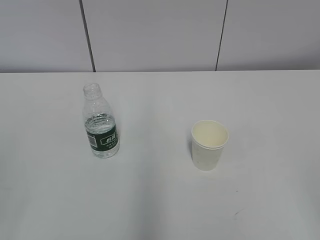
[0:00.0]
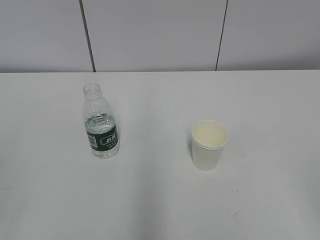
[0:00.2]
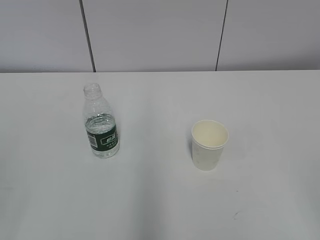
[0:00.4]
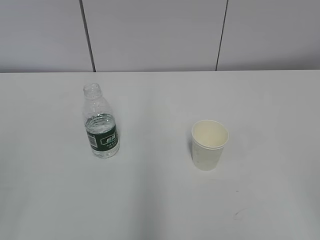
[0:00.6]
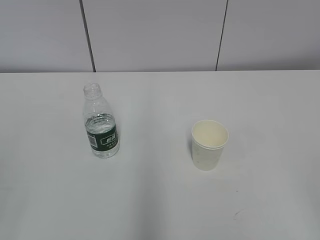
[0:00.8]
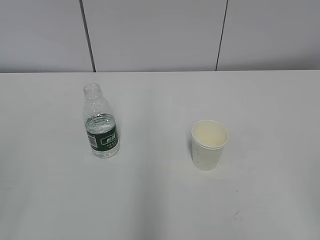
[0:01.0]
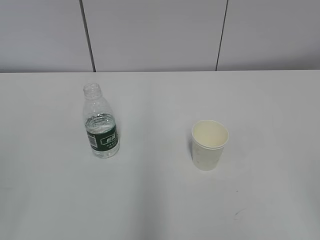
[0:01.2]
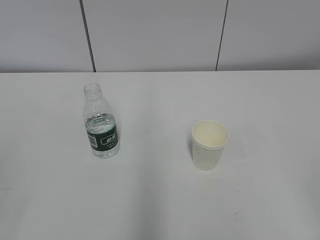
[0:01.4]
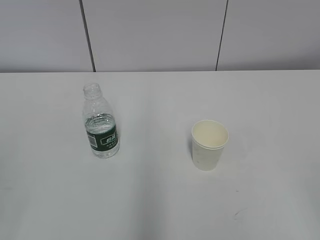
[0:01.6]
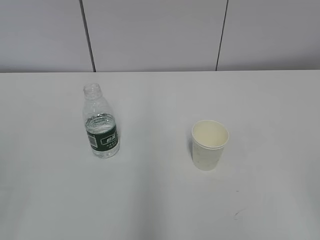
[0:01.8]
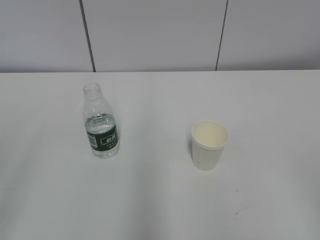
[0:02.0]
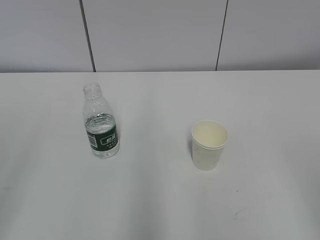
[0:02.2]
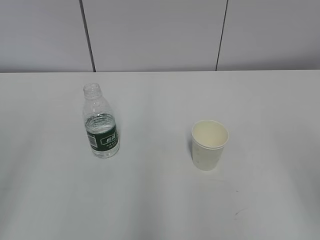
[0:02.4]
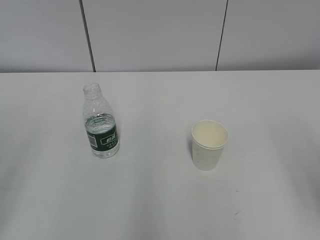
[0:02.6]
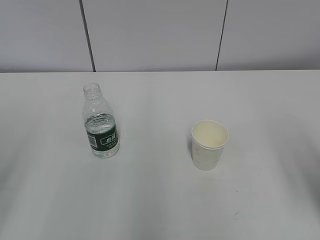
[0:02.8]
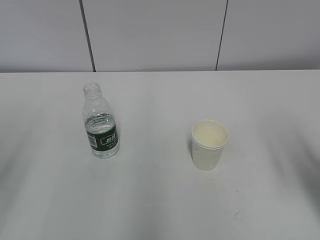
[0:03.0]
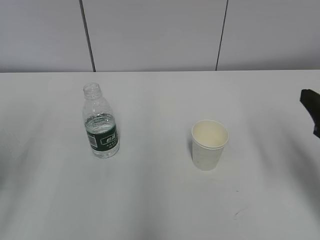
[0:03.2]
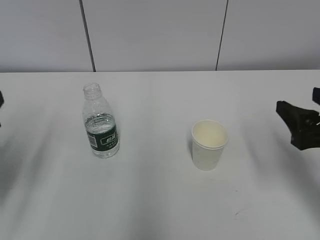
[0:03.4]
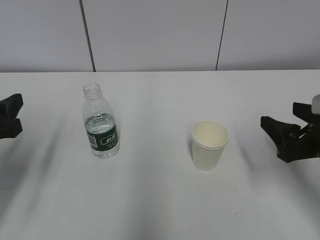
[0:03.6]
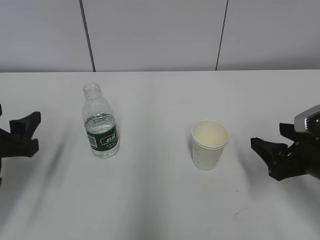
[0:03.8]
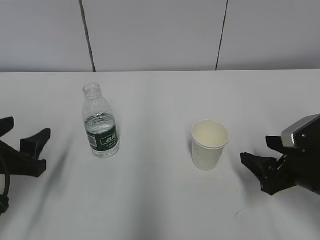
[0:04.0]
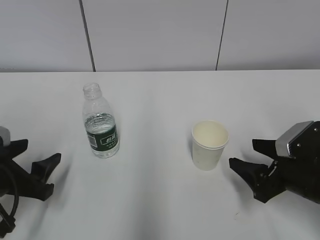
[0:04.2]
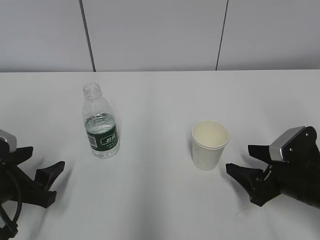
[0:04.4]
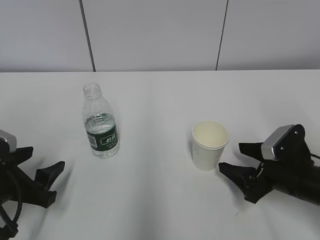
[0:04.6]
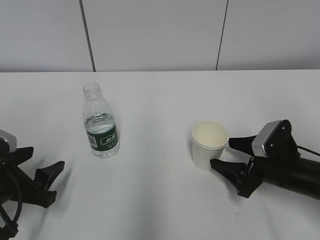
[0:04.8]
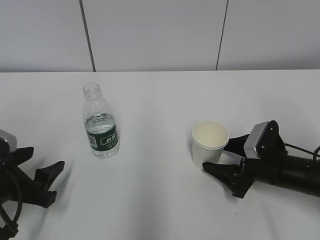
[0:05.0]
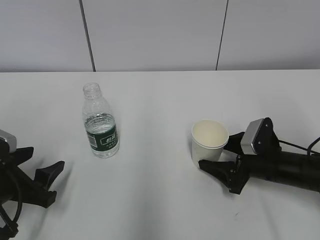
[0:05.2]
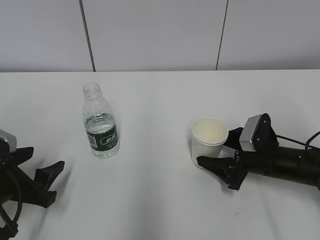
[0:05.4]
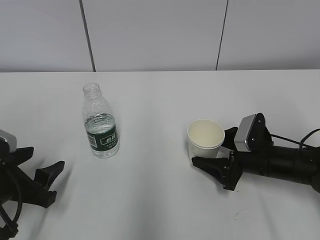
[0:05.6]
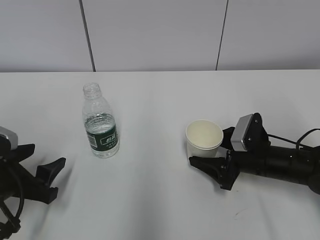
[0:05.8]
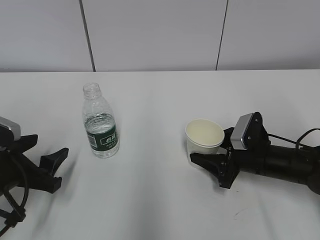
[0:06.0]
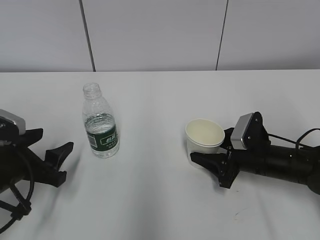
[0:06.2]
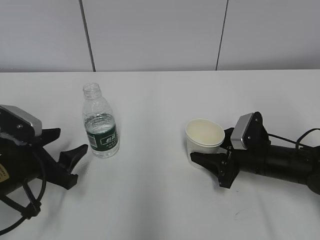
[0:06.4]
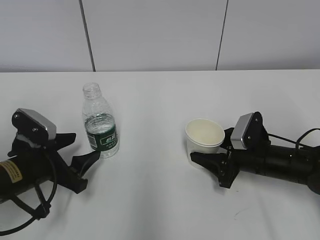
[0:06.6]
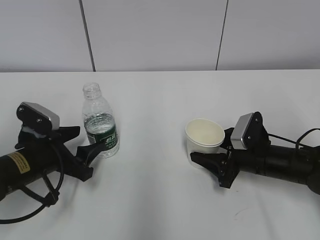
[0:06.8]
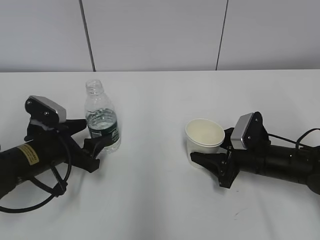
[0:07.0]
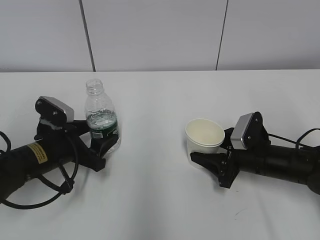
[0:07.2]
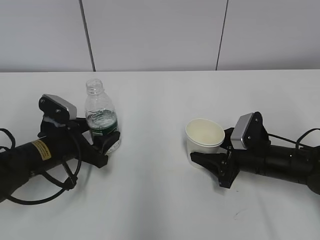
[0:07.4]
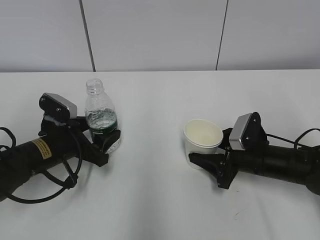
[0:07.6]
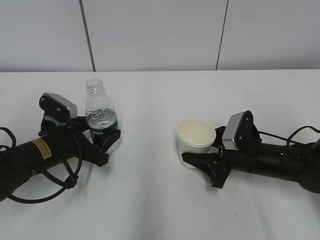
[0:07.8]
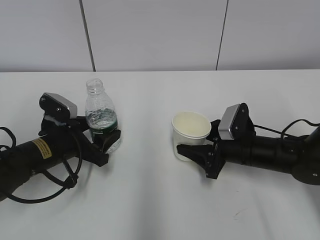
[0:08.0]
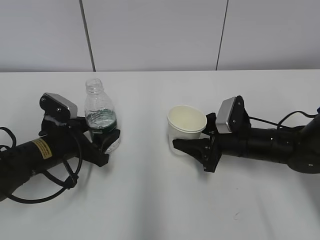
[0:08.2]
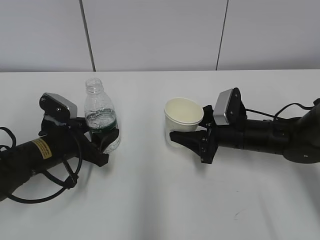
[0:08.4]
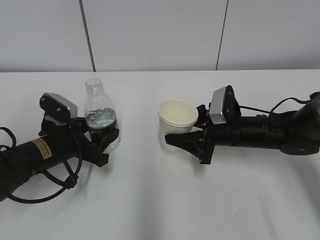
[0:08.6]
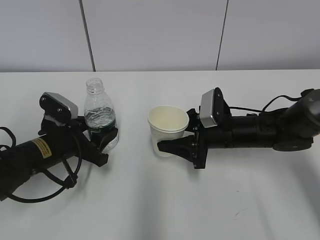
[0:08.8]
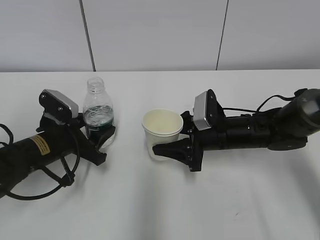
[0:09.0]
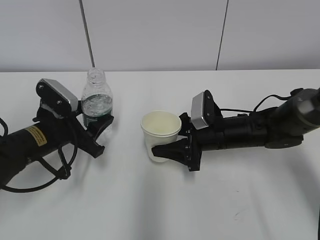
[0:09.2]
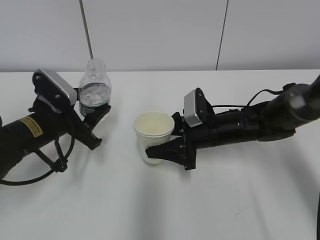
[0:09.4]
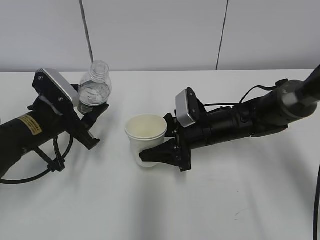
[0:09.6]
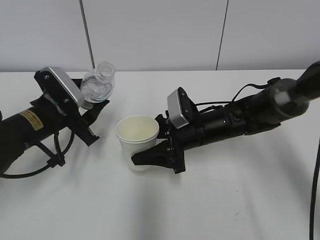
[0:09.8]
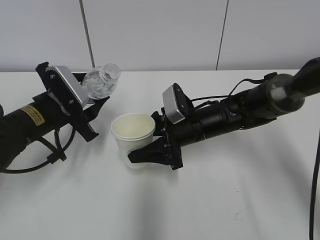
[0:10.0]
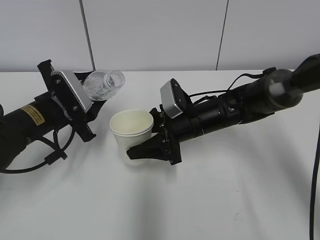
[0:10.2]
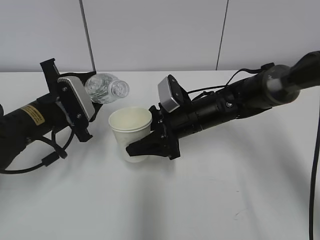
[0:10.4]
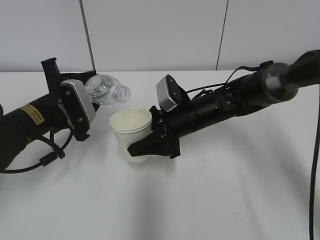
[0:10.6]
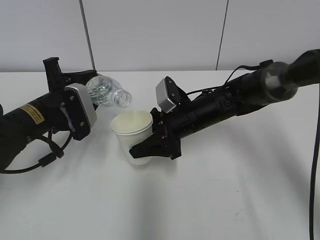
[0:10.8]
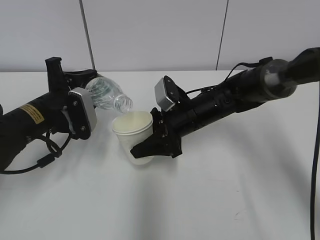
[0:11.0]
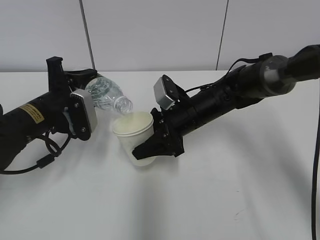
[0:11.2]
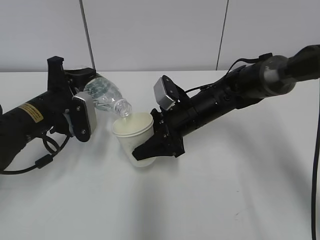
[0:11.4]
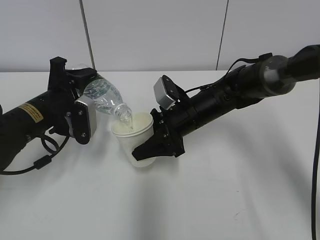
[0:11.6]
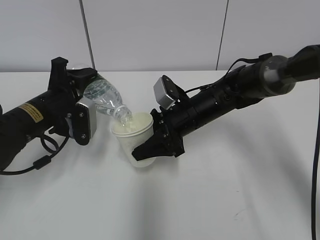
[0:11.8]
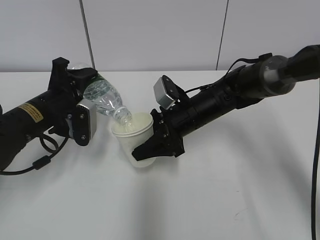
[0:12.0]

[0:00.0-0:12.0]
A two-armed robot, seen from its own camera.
Step, 0.0 to 6.4 s: Grab the paper cup with the right hand.
Step, 6.6 to 7.4 s: Grab the water bottle with the left hand.
Step, 7.6 to 9.4 s: Lift the paper cup with the right hand.
Step, 9.6 to 11.0 s: Fill water with the right hand.
Step, 9.6 to 11.0 s: Pour water with the left hand.
1.6 to 3.0 s: The right gripper goes some 20 cm forward.
3.0 to 4.4 s: The left gripper heads downward, forward and to the right, covering some 20 cm. The right gripper moves downward and forward, approximately 20 cm.
4.4 to 6.0 s: The right gripper goes some 5 cm forward, and closes its fingers.
6.0 to 7.6 s: The left gripper heads forward and to the right, covering roughly 10 cm.
7.6 to 9.0 s: The right gripper goes some 5 cm to the left. Meanwhile the left gripper closes its fingers.
9.0 to 10.4 s: The right gripper is displaced to the left by about 5 cm; the left gripper goes some 5 cm upward.

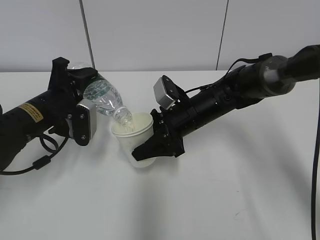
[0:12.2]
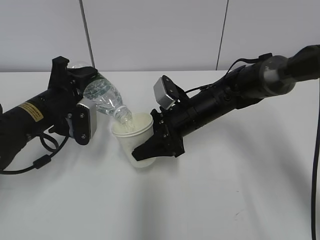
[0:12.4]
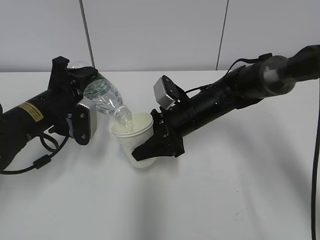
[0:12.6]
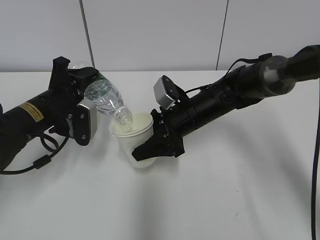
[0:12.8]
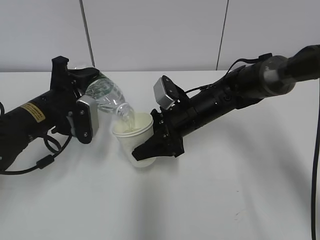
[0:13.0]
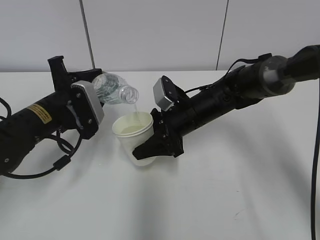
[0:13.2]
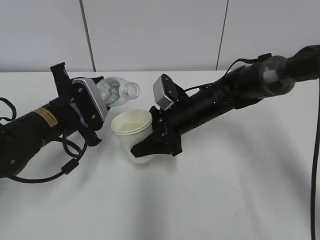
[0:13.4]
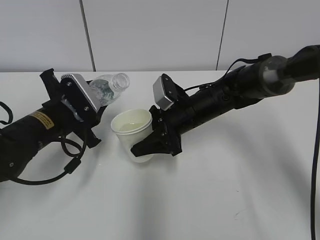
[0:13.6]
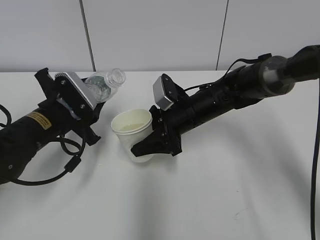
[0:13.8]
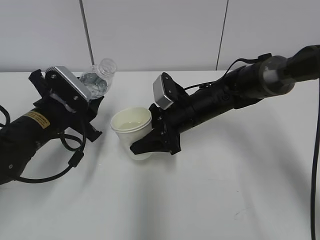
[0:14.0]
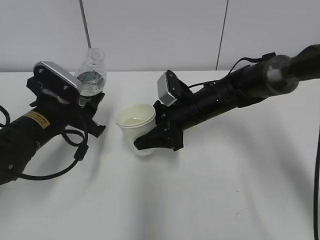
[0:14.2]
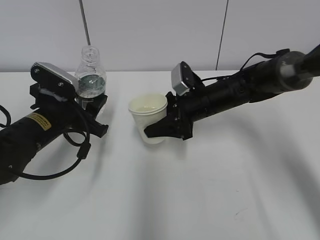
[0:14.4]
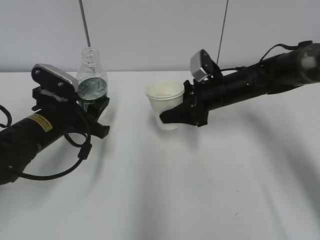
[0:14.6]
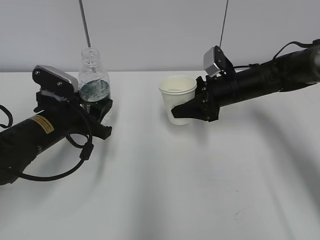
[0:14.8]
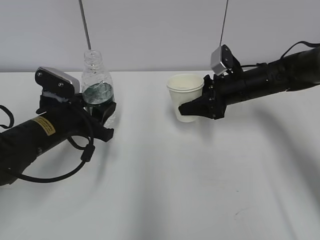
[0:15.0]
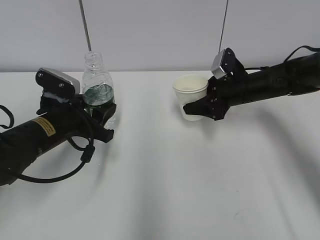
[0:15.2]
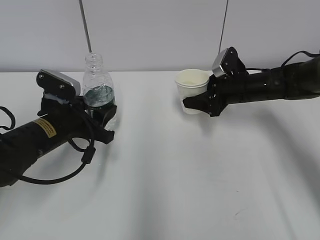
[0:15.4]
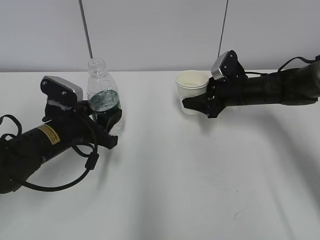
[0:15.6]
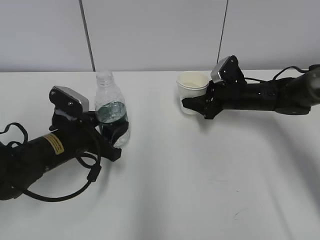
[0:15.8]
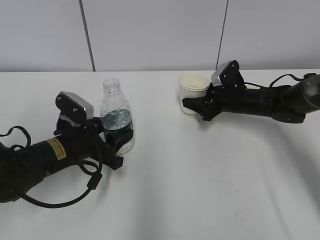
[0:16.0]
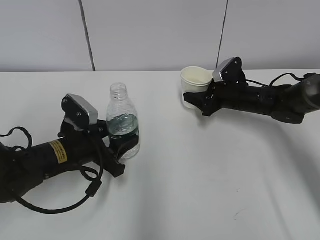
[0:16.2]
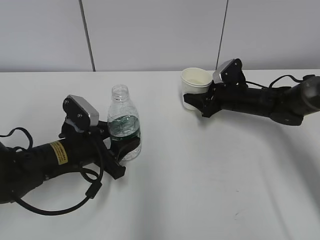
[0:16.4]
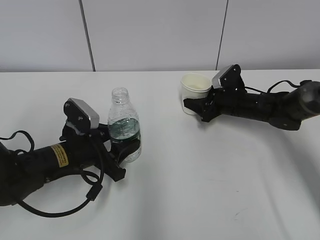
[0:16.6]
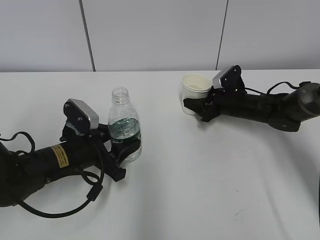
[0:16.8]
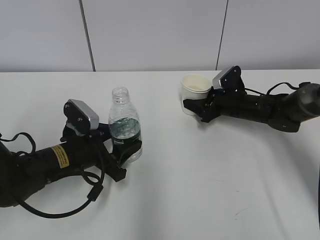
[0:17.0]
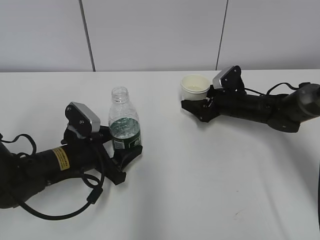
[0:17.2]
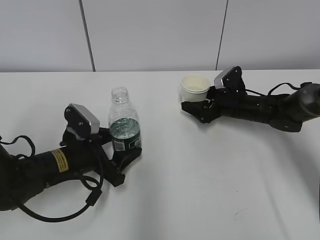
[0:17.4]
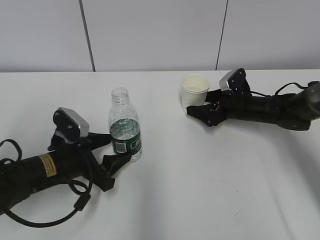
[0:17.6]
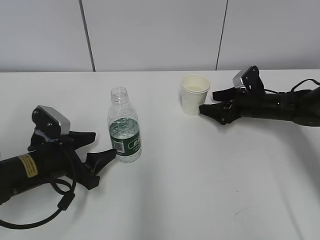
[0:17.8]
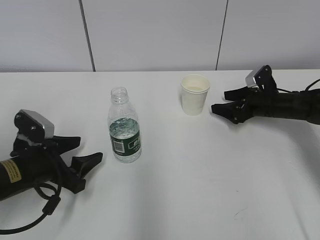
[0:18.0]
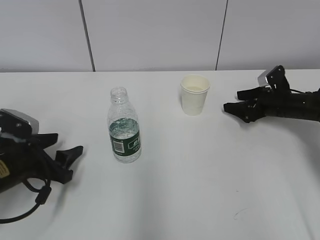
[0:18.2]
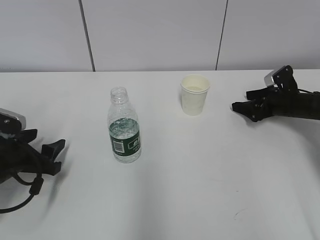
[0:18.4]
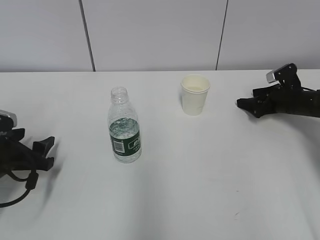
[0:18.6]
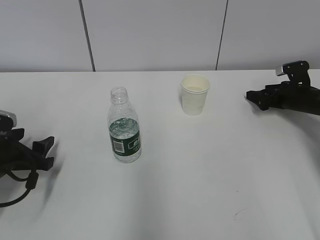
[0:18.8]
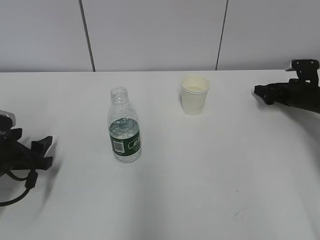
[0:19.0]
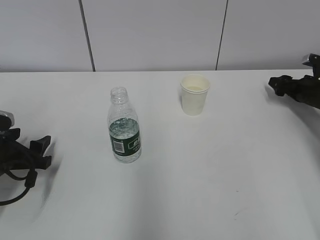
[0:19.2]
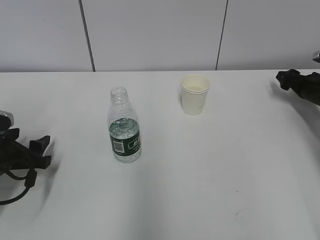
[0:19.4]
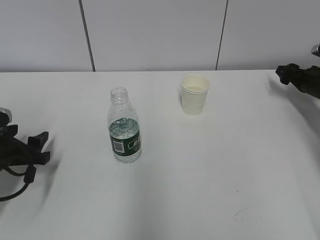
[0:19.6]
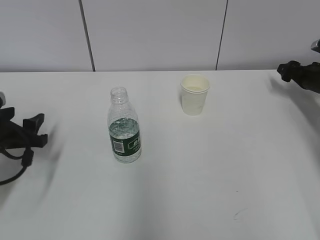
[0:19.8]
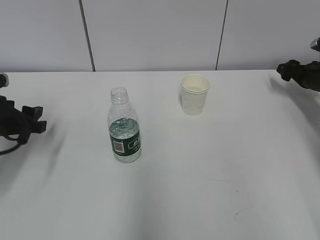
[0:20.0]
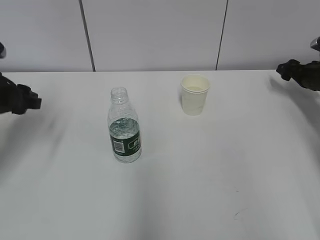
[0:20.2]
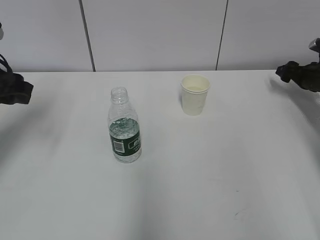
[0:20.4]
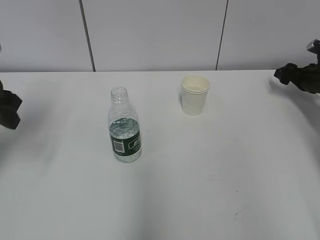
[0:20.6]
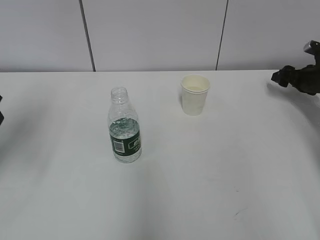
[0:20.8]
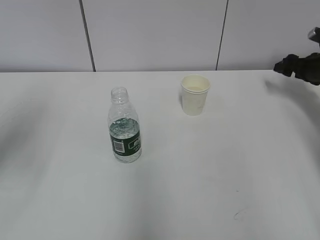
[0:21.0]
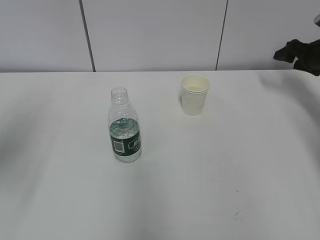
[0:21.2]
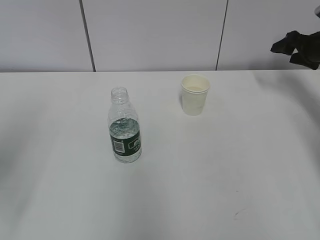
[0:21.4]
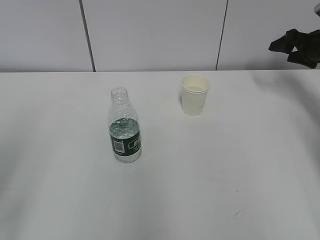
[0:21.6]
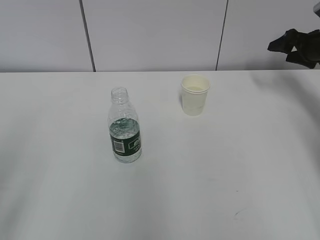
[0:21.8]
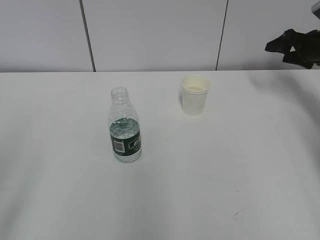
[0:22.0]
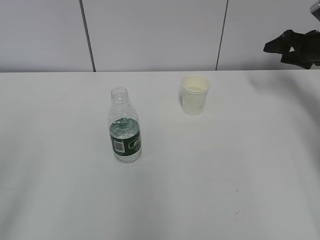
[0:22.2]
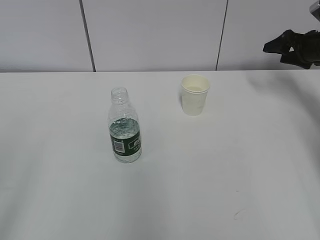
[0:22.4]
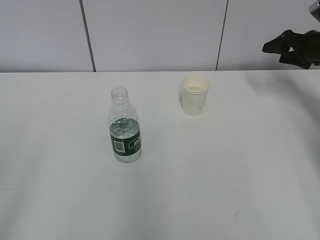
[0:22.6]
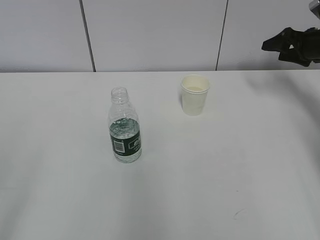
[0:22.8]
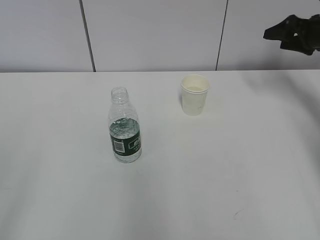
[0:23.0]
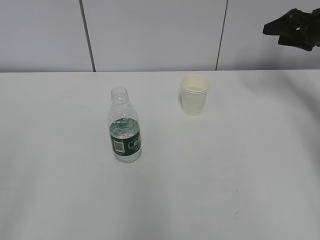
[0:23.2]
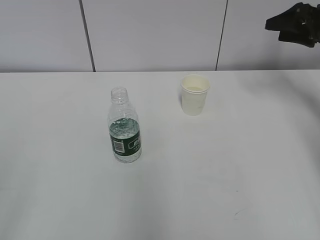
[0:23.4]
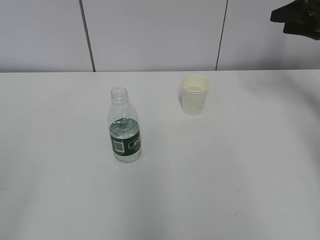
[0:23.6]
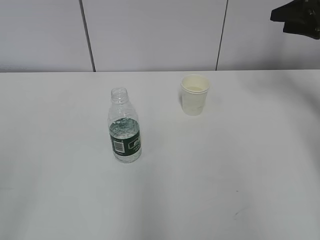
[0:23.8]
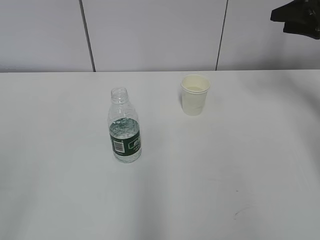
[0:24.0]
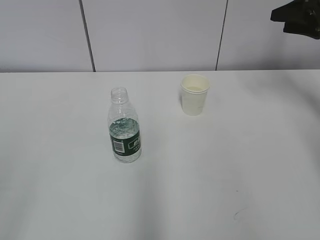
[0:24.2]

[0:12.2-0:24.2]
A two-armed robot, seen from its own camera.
Step, 12.4 to 14.2 s: Place the water bottle with the left hand.
13.8 to 15.2 s: The right gripper is displaced to the right by some 10 cm.
15.2 to 16.6 s: The left gripper shifts by approximately 5 cm, while the right gripper travels downward by about 5 cm.
16.6 to 18.2 s: The right gripper goes some 10 cm to the right, and opens; the left gripper shifts approximately 10 cm to the left, and opens its fingers.
18.2 to 19.8 s: The left gripper moves approximately 5 cm. The right gripper travels to the right by roughly 10 cm.
19.8 to 21.2 s: The right gripper goes roughly 10 cm upward. Meanwhile the left gripper goes roughly 20 cm upward and backward.
21.2 to 22.6 s: The left gripper heads backward, covering approximately 20 cm.
22.6 to 24.2 s: The right gripper shifts approximately 10 cm upward.
